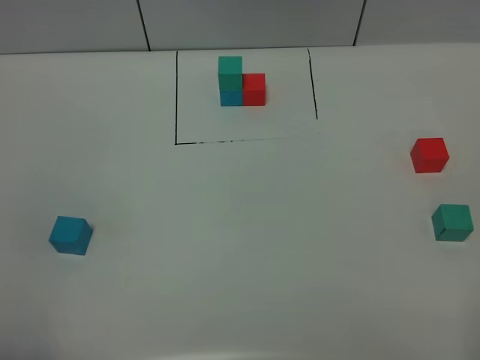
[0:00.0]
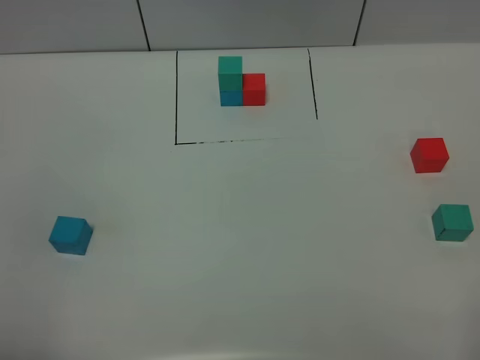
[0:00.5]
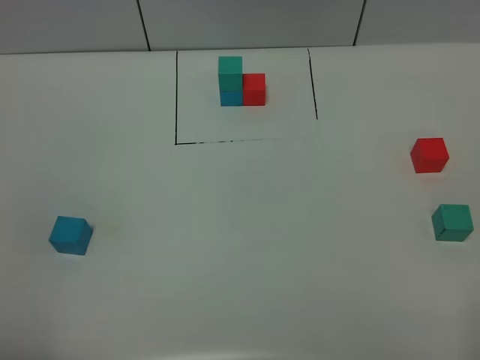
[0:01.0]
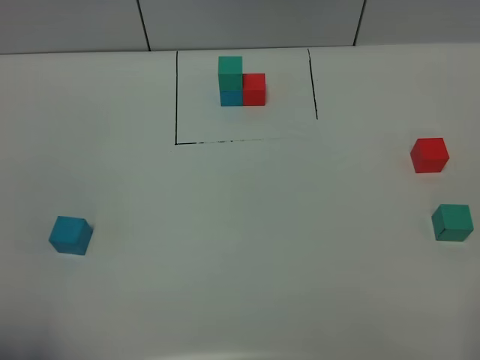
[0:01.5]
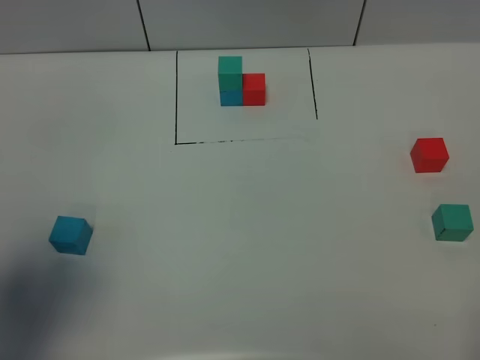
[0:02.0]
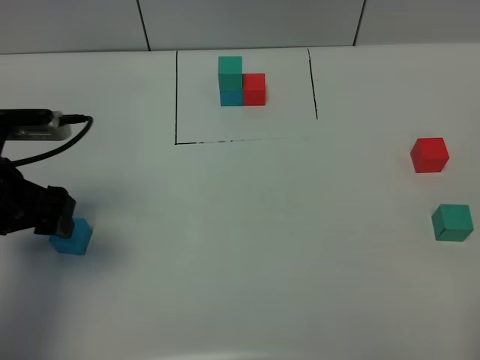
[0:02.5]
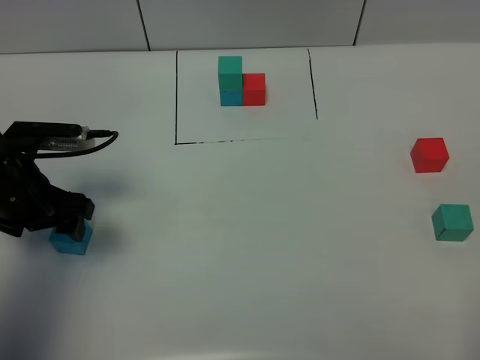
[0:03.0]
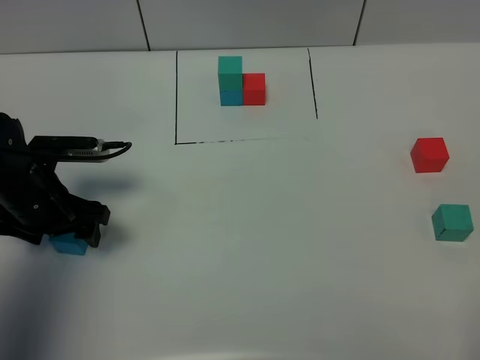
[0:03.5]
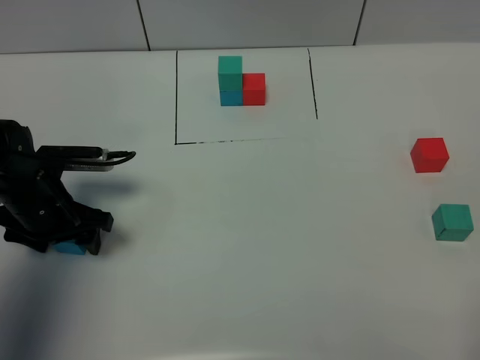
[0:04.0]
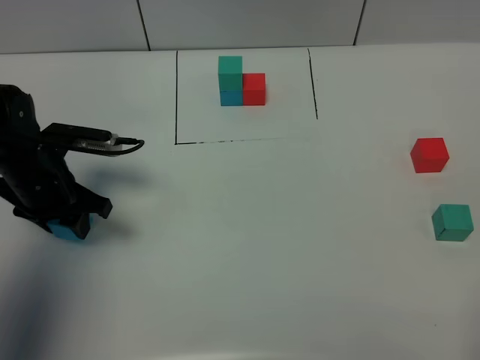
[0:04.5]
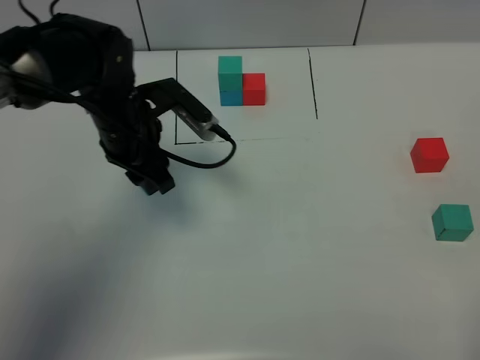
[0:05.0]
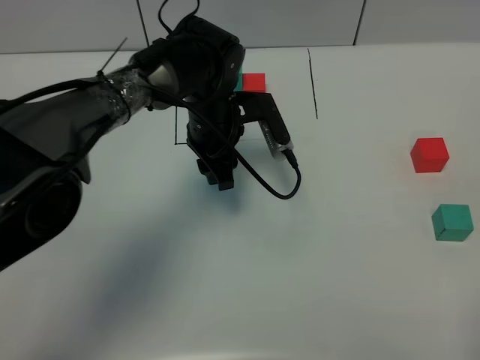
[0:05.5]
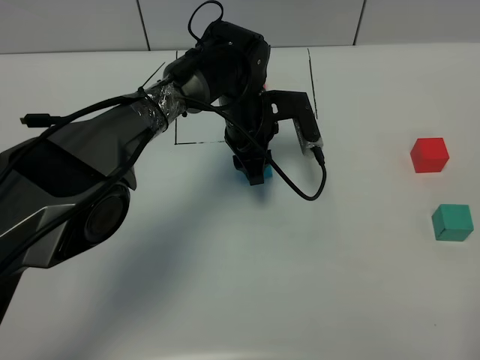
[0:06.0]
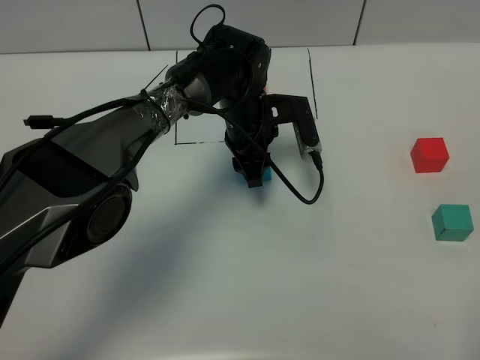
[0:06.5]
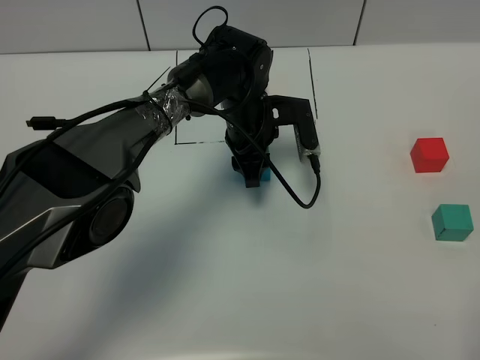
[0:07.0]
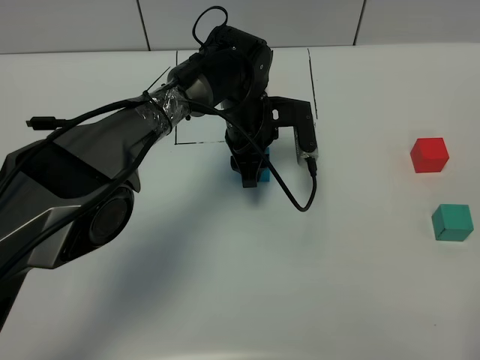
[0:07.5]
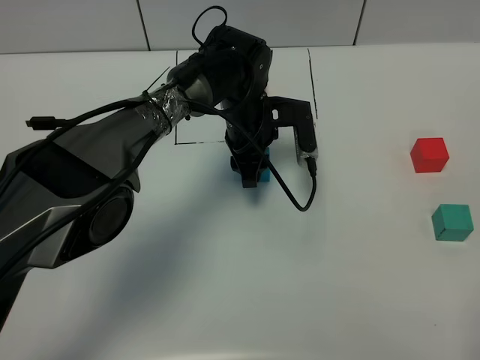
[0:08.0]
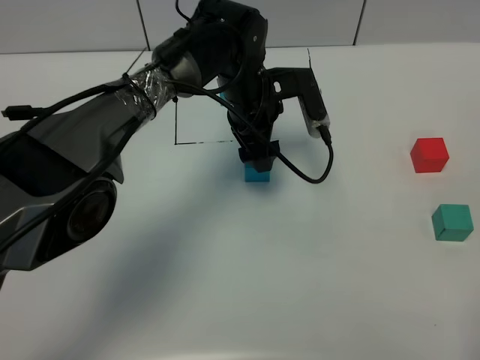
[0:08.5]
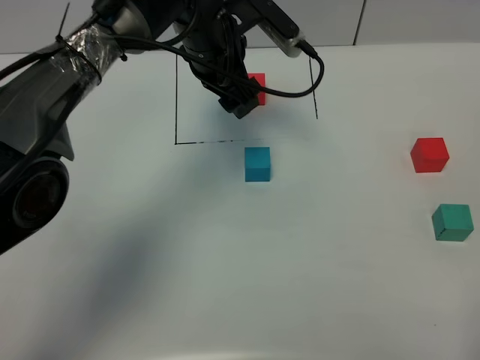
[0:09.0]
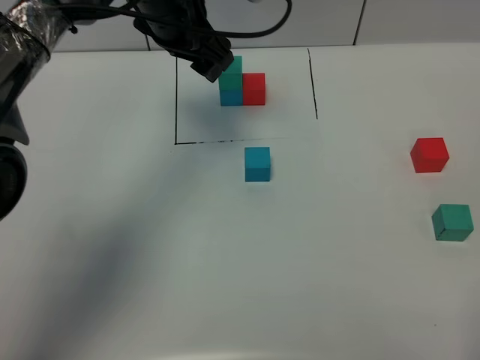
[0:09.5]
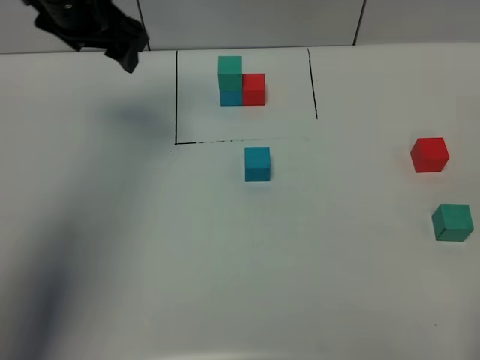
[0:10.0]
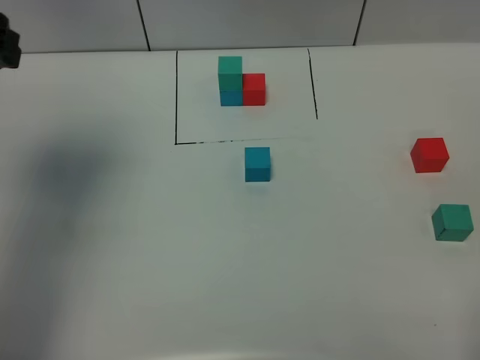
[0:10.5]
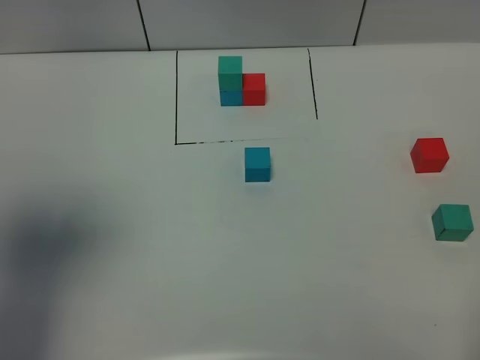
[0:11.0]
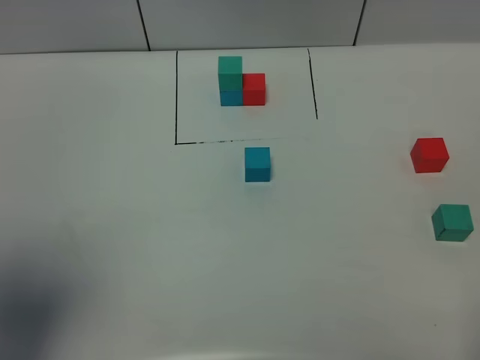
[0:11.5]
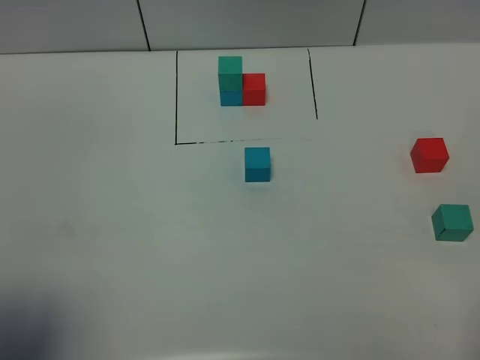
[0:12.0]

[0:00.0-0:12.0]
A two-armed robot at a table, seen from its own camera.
Task of the whole recording: According to the building block template in front, assemble the scattered blocks together.
Step, 0.0 to 8.0 s: Put the blue build block in the center of the table.
0.0 to 2.0 s: The left gripper shifts about 15 cm forward.
2.0 to 4.0 s: The left gripper travels downward and forward by roughly 25 cm.
4.0 to 6.0 s: The left gripper shifts about 30 cm to the right and forward, and closes.
6.0 to 8.0 s: The grippers stay close to where they were, moving slightly.
8.0 to 10.0 s: The left gripper goes about 30 cm to the left and upward, and opens up.
10.0 to 12.0 s: The left gripper is displaced backward by roughly 35 cm.

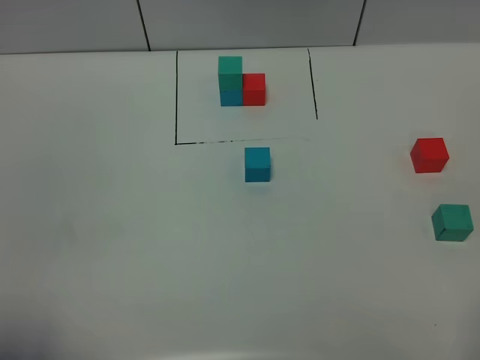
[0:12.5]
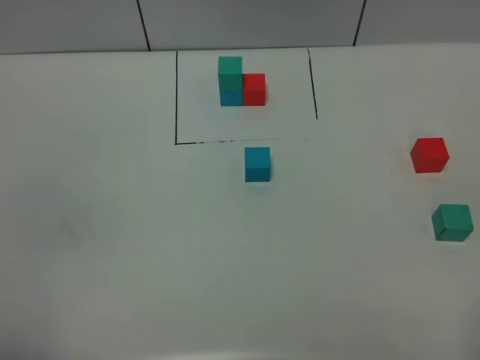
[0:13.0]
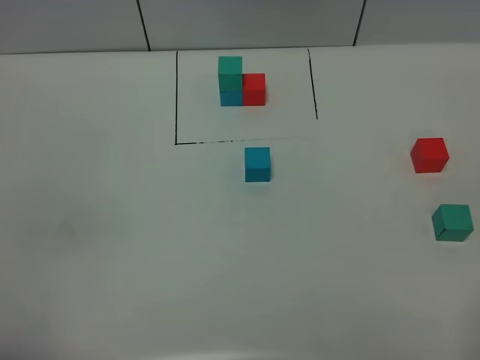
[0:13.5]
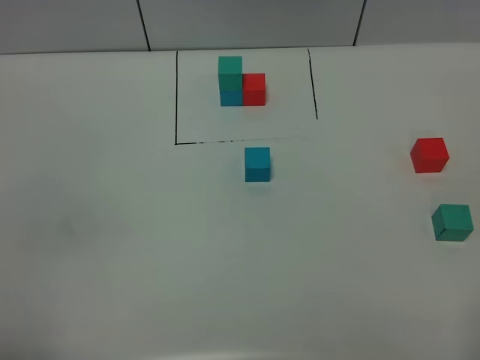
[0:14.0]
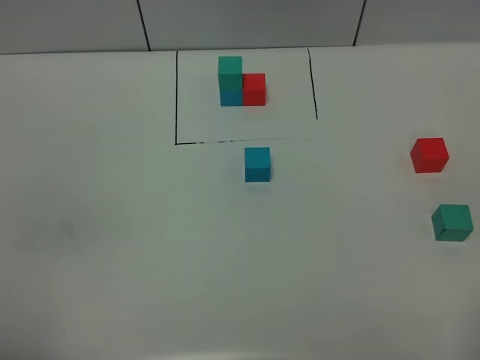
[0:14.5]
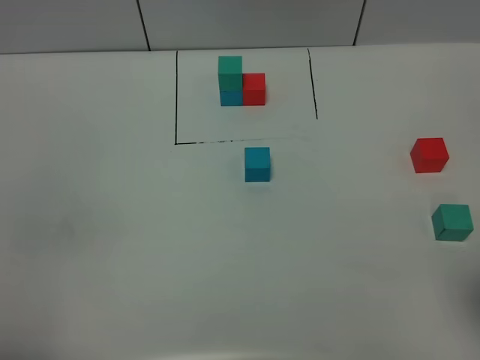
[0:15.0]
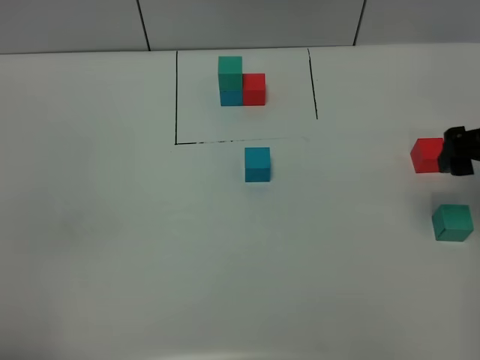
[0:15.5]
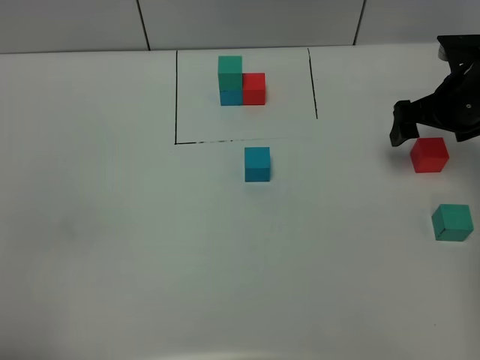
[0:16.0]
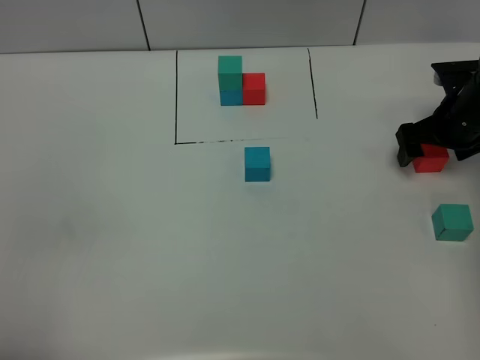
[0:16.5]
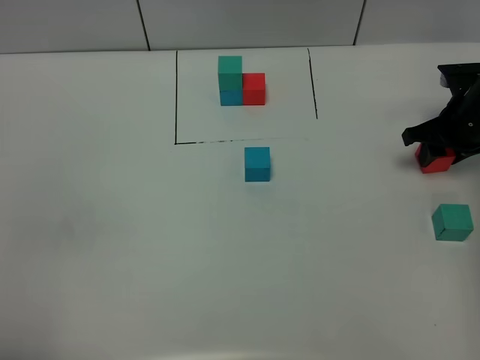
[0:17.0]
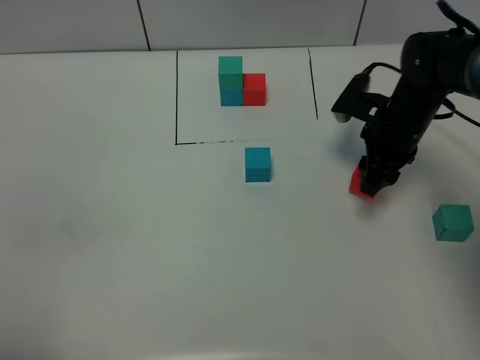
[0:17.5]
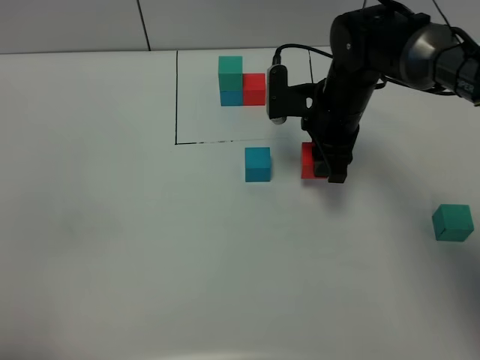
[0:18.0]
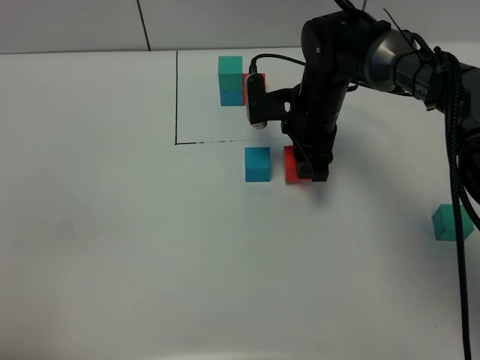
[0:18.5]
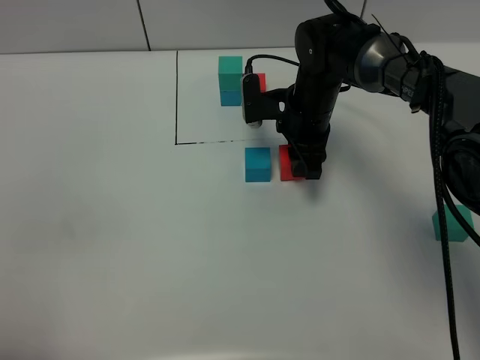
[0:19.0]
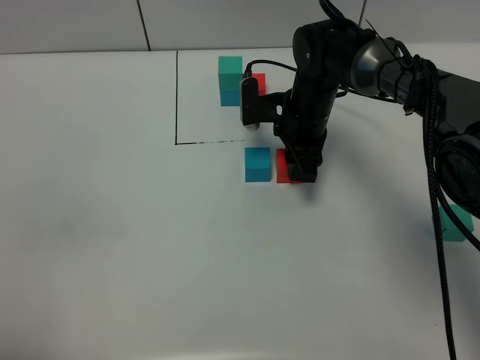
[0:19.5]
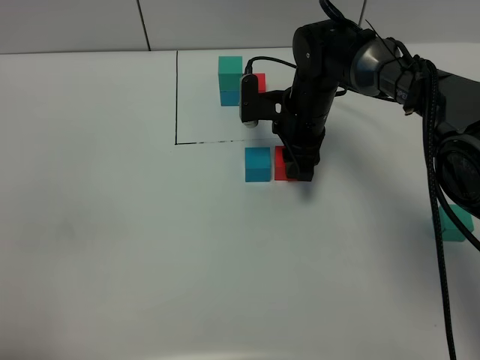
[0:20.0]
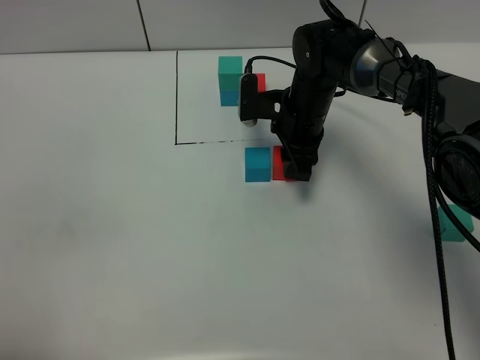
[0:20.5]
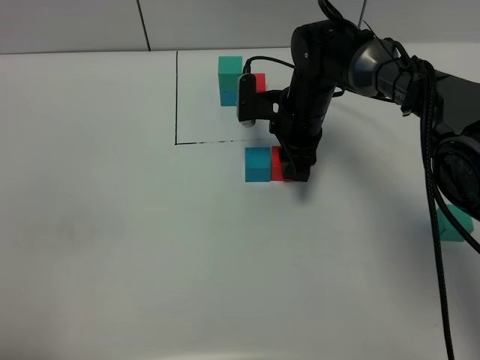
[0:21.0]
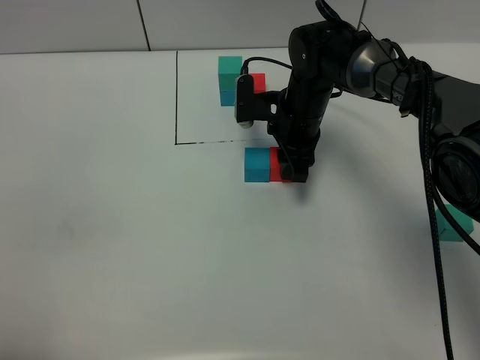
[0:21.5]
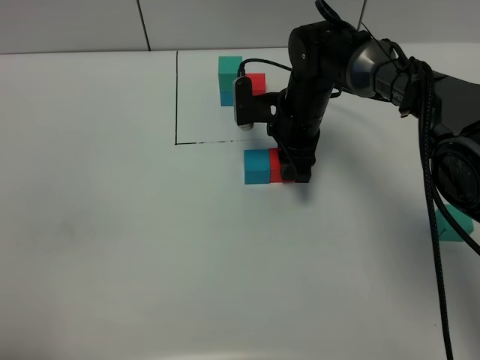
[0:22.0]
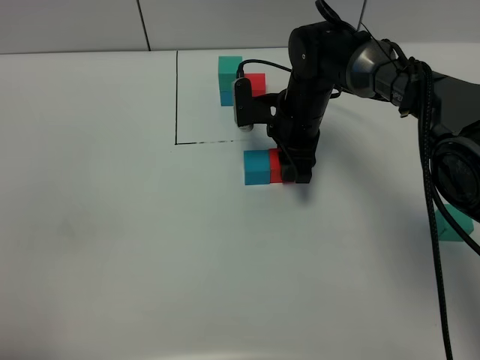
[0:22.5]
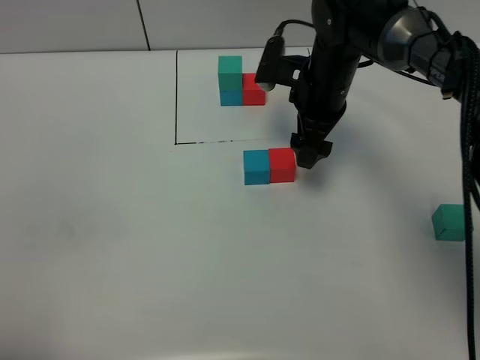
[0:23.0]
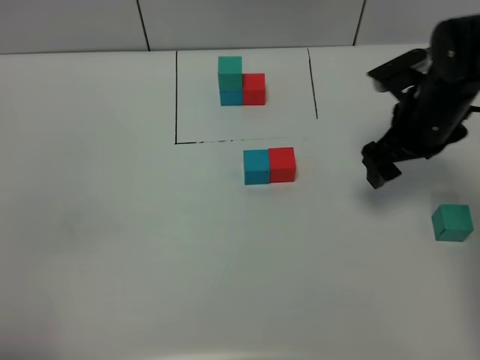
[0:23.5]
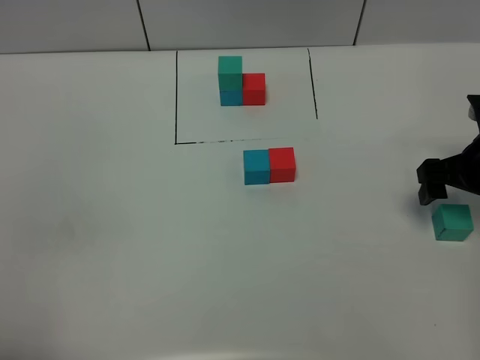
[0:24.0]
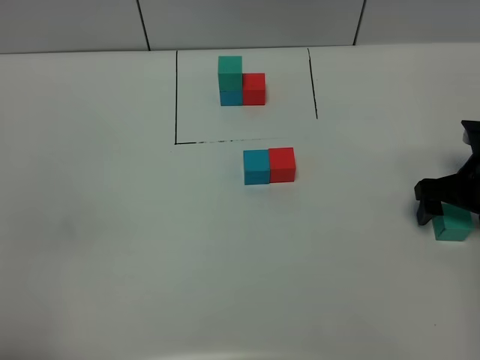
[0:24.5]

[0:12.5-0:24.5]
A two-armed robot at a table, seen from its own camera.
Task of the whole recording: According to the building block template in front, assemble the scattered blocks together.
Step, 12.5 to 22.0 s: Put the red build block on the right of the blue build block.
14.5 to 16.5 s: The right gripper heads forward, covering approximately 40 cm.
16.5 to 18.5 s: The right gripper travels to the left by some 20 cm, and closes up.
18.5 to 22.5 s: The grippers make only small movements.
22.5 to 24.5 s: The right gripper goes some 25 cm to the right and backward, and opens.

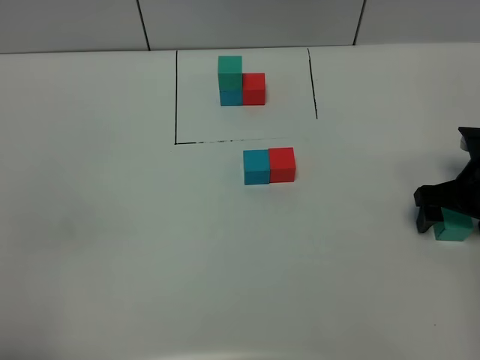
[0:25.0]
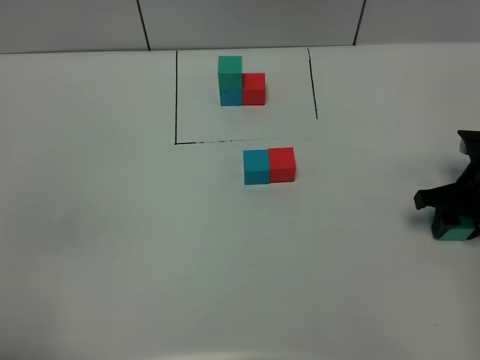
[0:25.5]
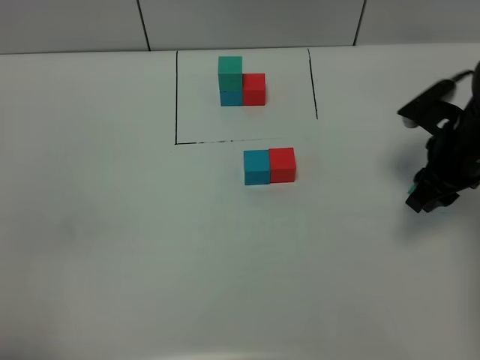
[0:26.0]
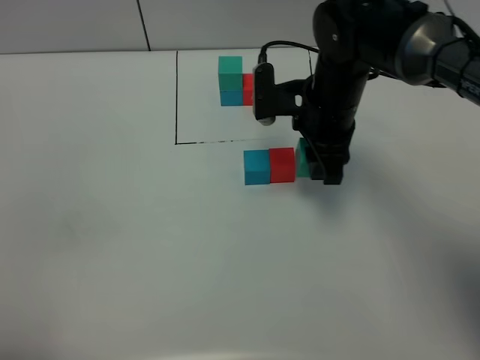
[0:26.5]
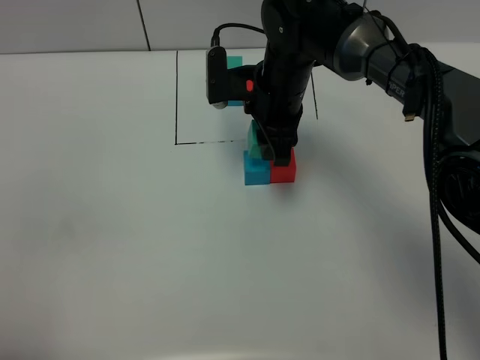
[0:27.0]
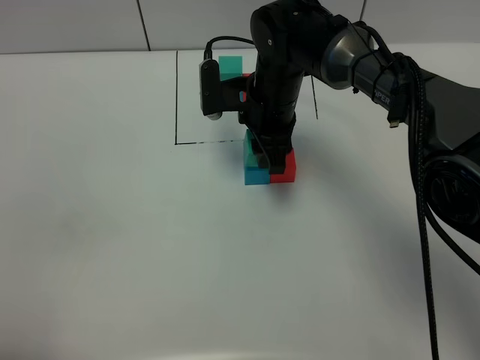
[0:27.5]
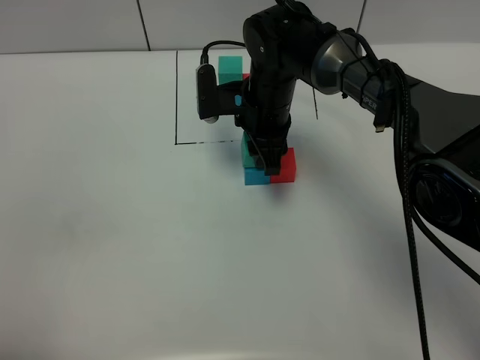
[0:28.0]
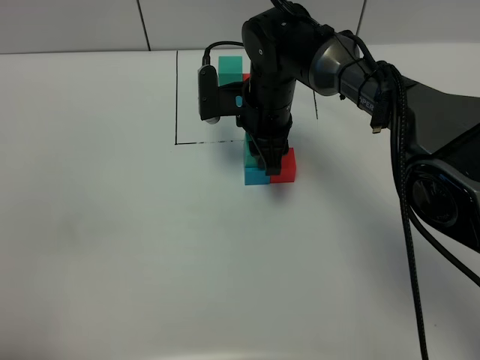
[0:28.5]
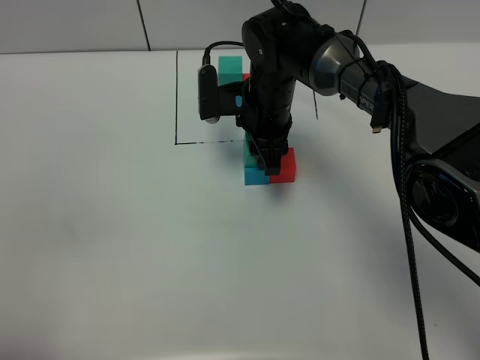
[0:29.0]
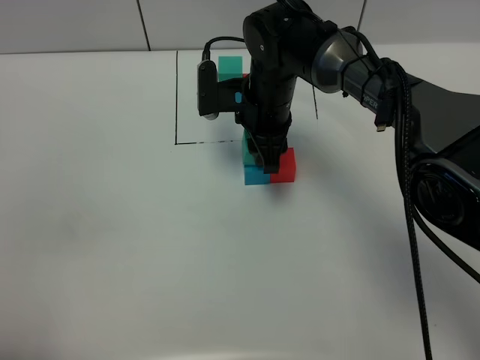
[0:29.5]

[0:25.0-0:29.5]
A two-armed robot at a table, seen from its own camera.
Task of the whole recording: According to the building block template in front, assemble the scattered blocks together.
25.0 to 27.0 s: The right gripper moves to the left, roughly 25 cm, and closes.
27.0 to 29.5 s: The grippers make only small movements.
